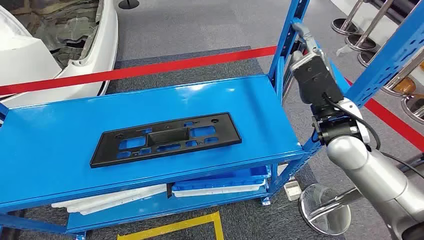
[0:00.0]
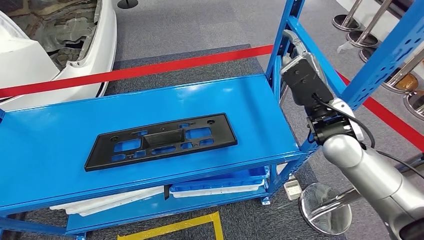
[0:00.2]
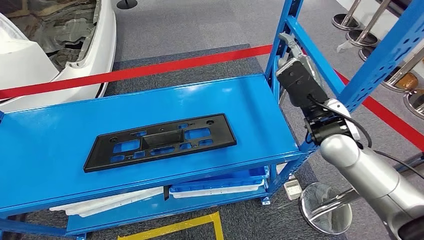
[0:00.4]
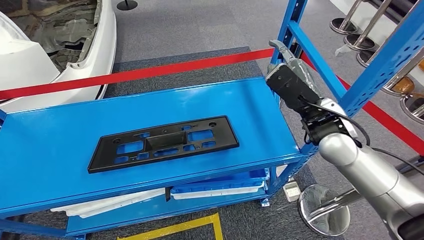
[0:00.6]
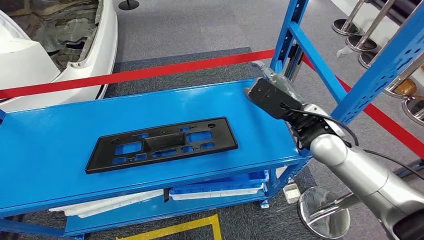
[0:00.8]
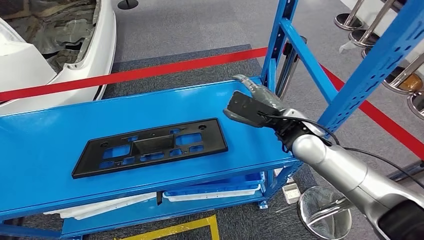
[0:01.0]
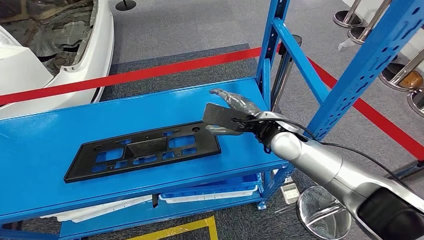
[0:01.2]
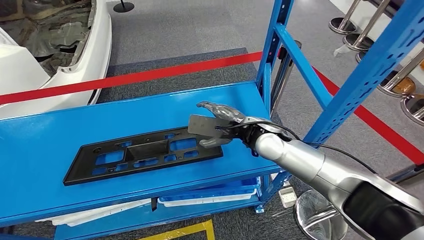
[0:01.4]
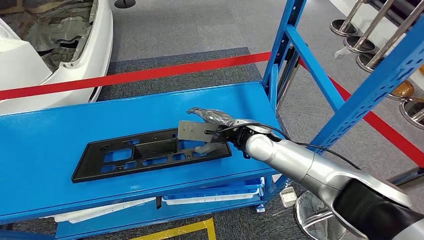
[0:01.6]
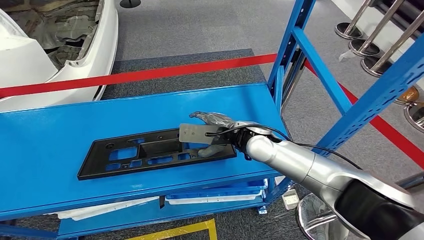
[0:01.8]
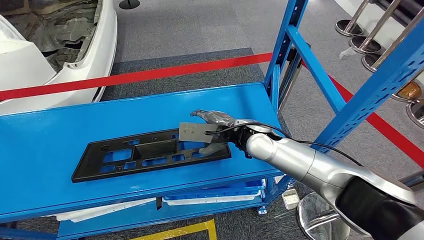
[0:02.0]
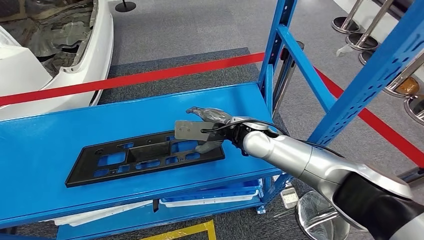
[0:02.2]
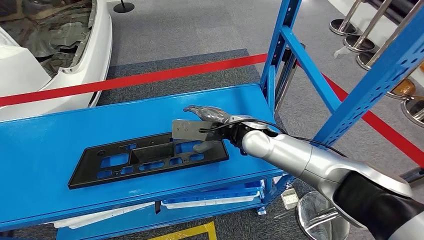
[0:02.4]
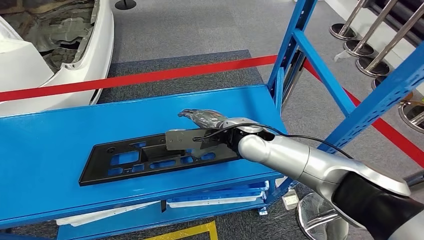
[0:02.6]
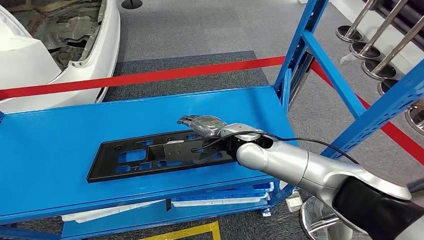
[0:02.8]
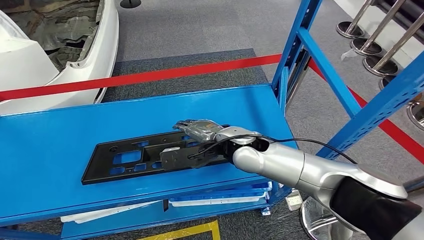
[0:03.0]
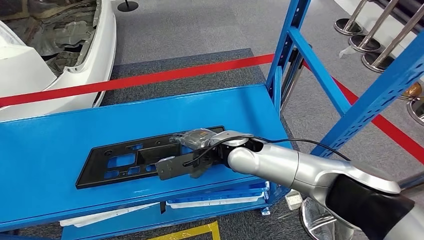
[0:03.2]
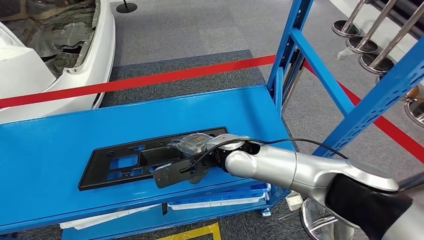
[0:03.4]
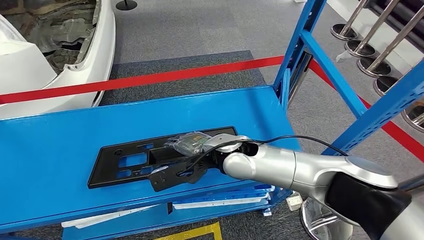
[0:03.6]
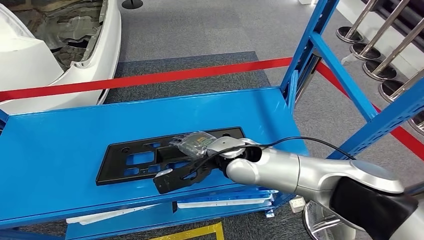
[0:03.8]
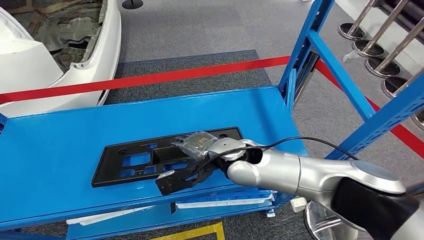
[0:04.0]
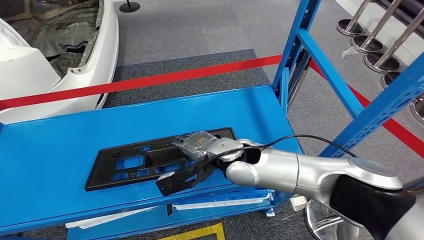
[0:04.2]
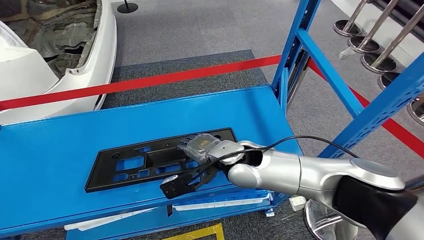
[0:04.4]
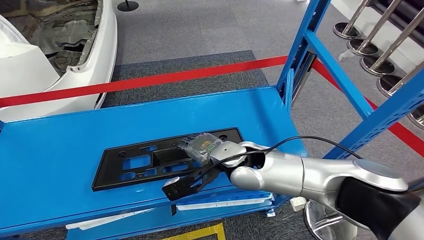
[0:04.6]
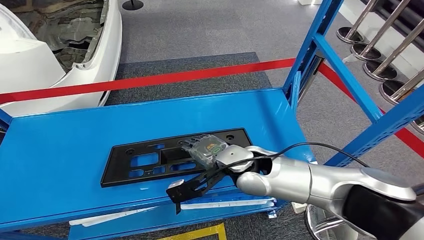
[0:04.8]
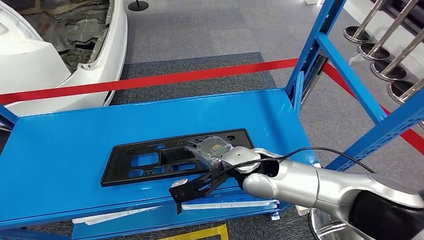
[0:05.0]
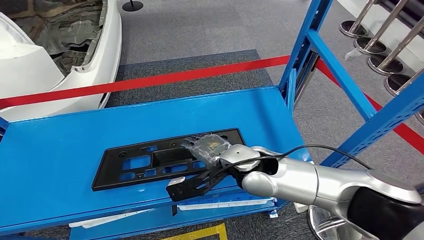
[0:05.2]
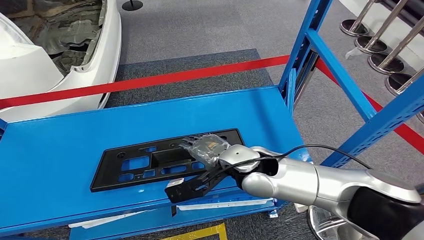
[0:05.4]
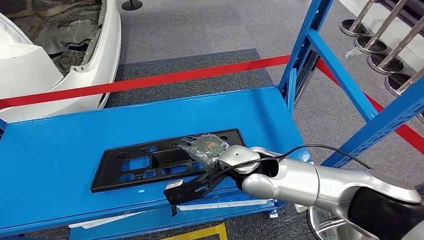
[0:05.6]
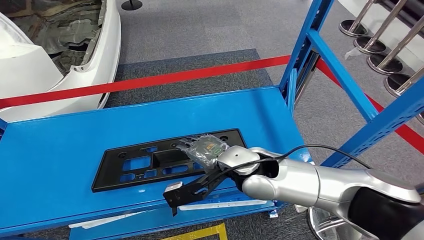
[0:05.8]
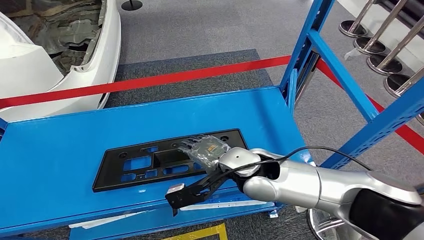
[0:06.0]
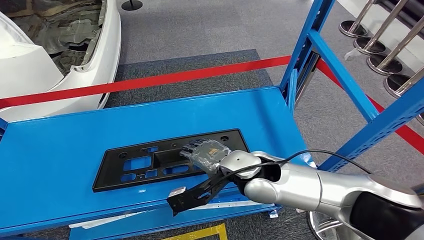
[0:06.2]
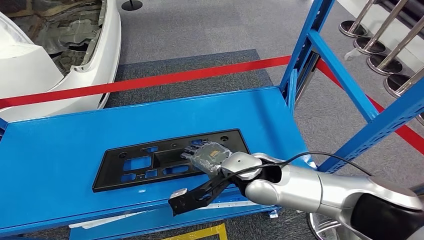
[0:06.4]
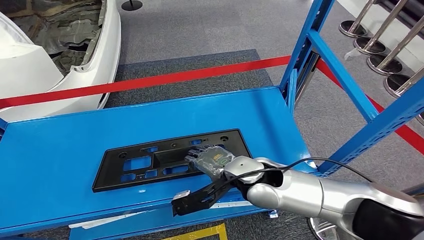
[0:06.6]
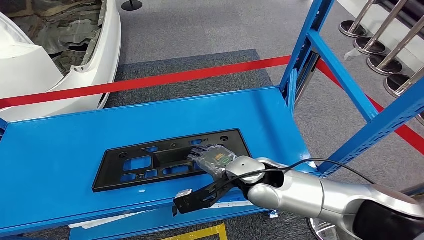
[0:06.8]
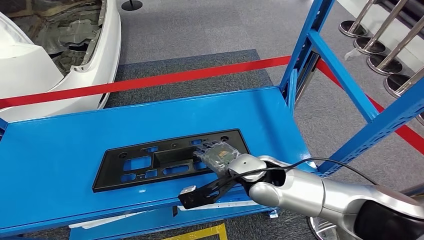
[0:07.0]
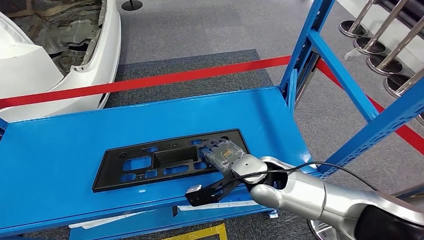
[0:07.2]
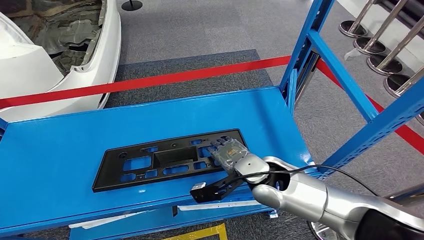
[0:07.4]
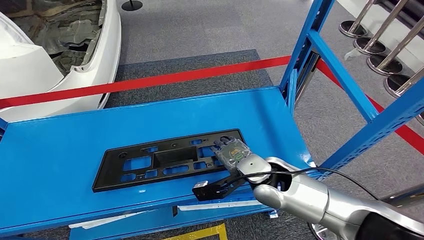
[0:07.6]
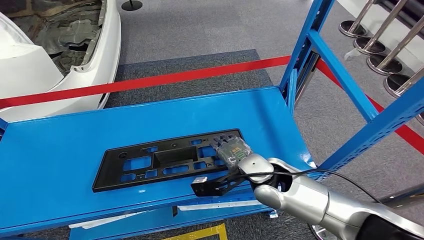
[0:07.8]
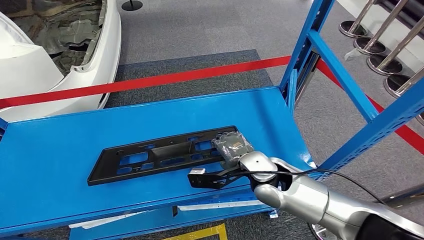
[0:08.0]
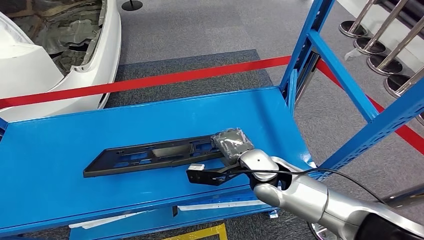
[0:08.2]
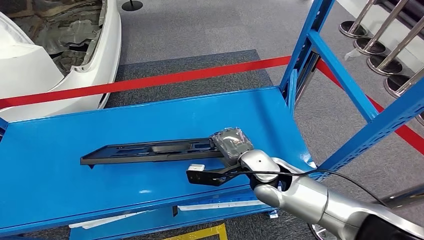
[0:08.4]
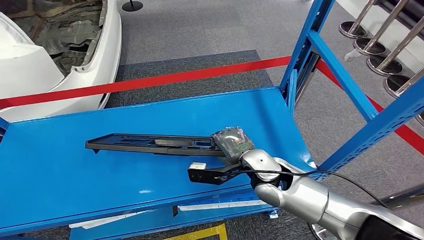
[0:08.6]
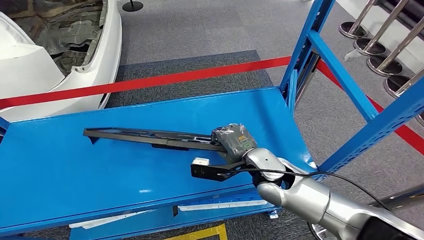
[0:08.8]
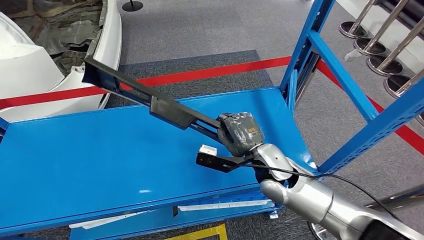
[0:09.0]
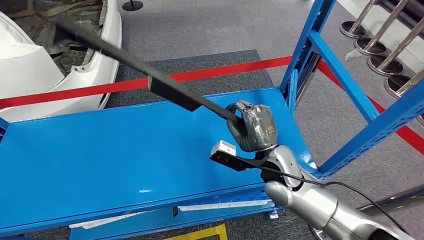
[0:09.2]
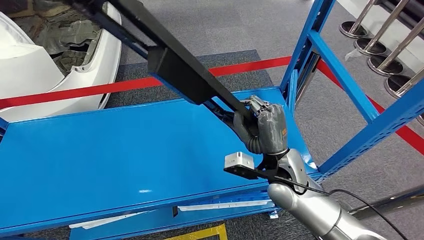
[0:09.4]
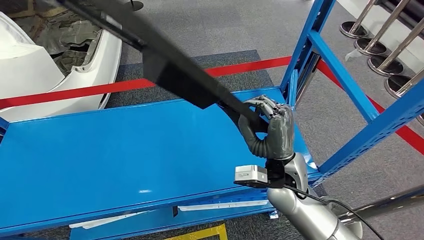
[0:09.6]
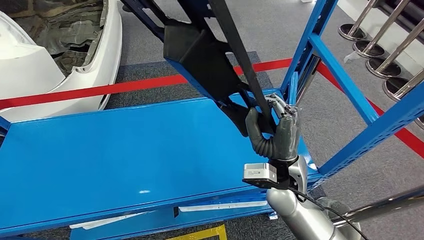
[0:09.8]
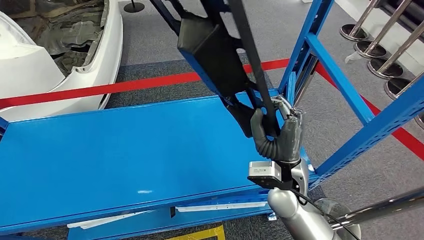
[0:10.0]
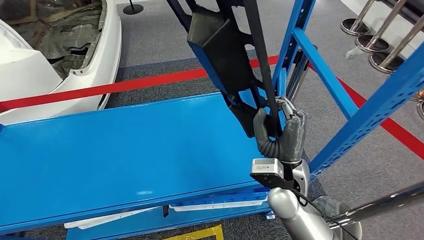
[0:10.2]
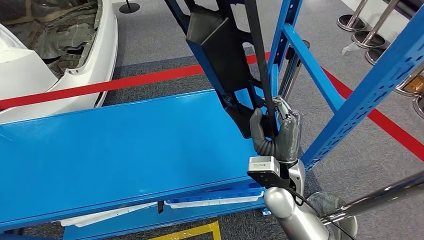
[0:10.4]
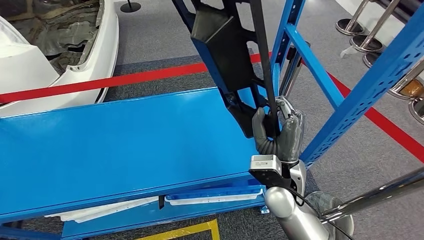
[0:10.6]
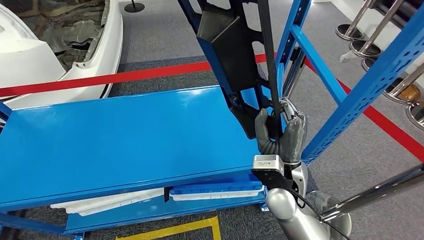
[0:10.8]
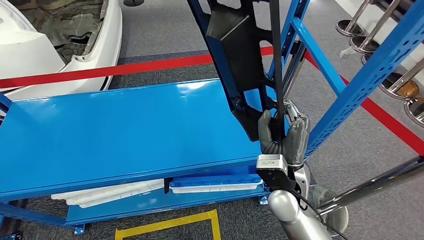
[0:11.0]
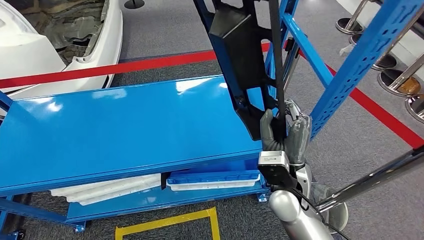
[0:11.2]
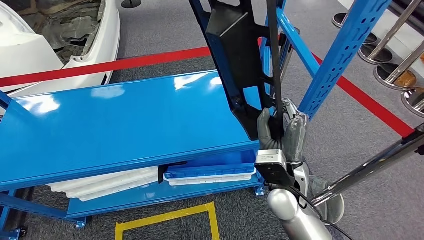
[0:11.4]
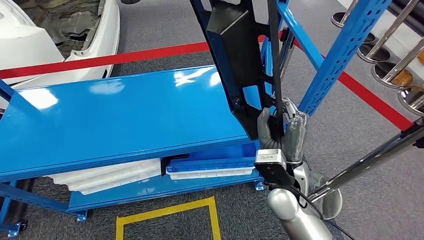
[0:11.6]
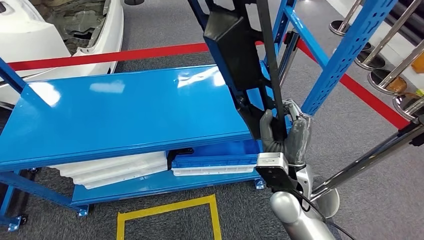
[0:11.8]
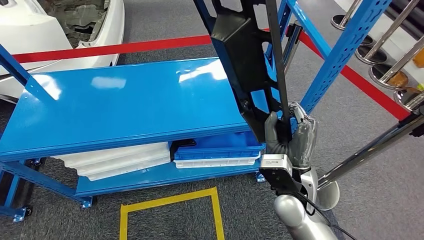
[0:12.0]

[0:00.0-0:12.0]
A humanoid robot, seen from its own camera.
0:06.0 to 0:07.6: The right hand moves roughly 5 cm.

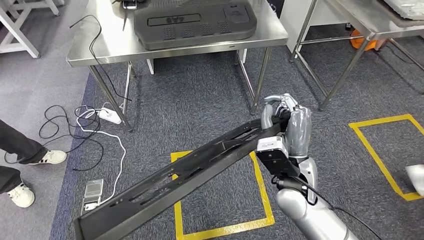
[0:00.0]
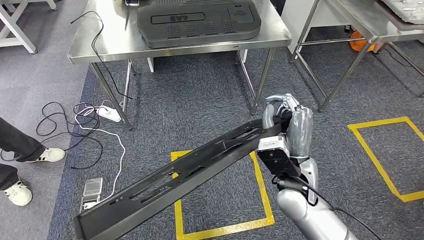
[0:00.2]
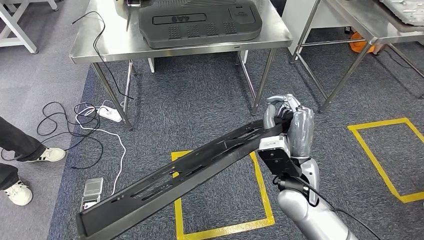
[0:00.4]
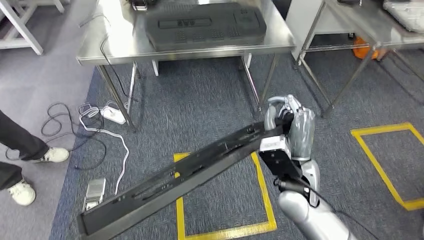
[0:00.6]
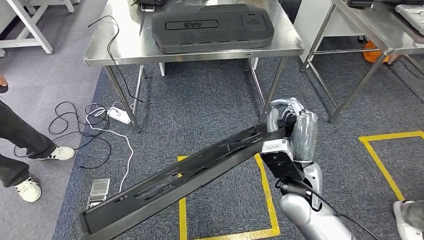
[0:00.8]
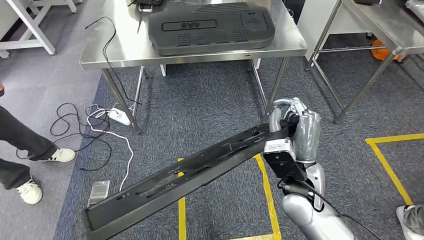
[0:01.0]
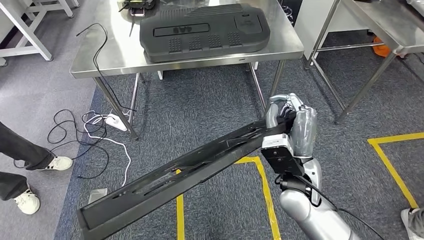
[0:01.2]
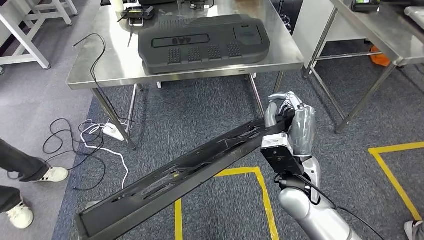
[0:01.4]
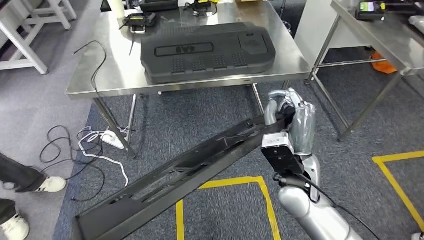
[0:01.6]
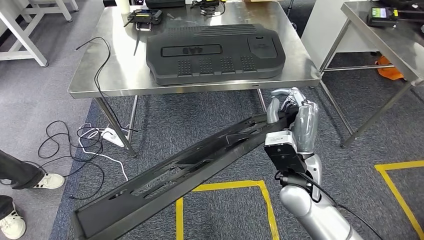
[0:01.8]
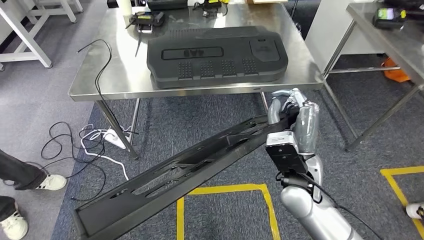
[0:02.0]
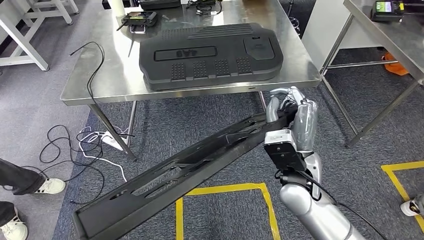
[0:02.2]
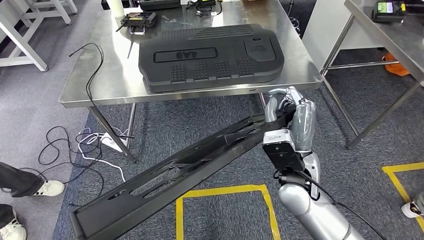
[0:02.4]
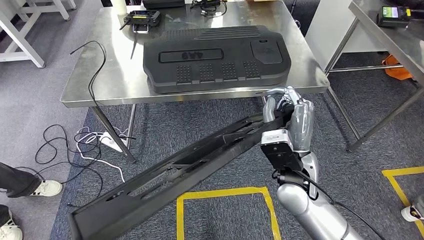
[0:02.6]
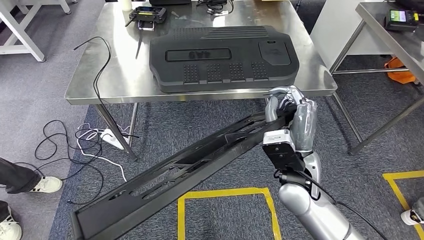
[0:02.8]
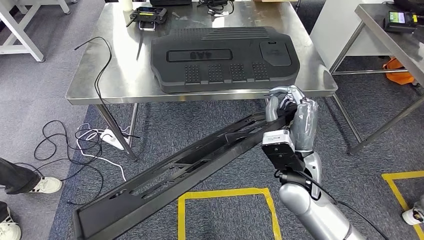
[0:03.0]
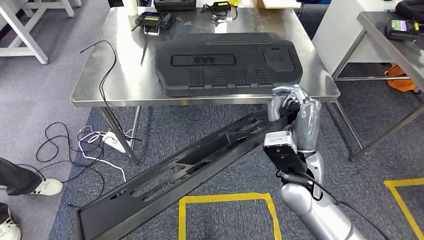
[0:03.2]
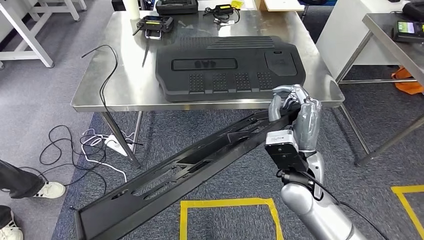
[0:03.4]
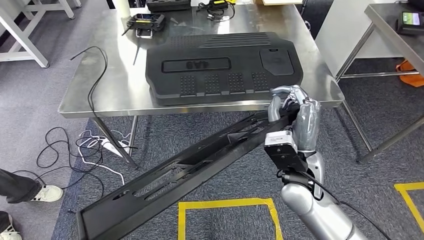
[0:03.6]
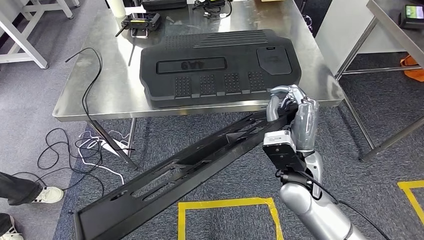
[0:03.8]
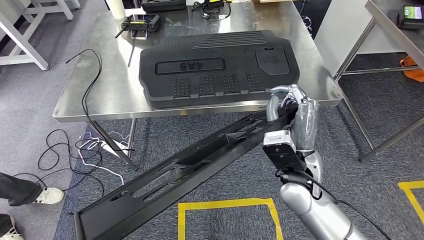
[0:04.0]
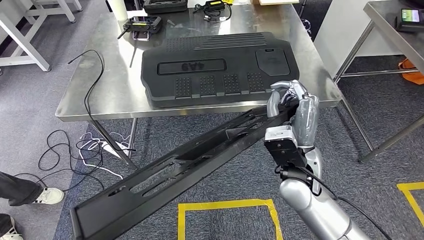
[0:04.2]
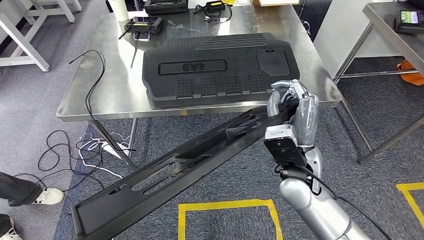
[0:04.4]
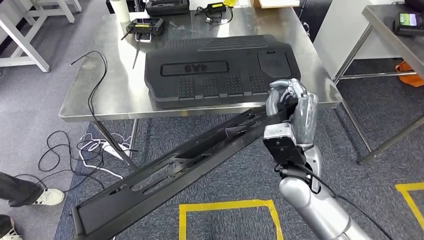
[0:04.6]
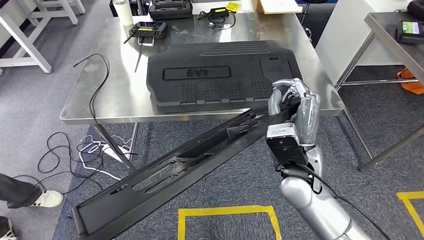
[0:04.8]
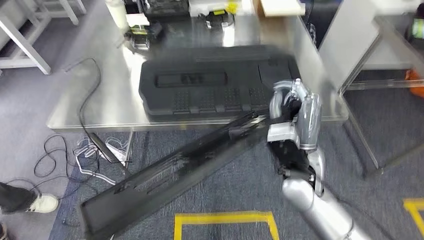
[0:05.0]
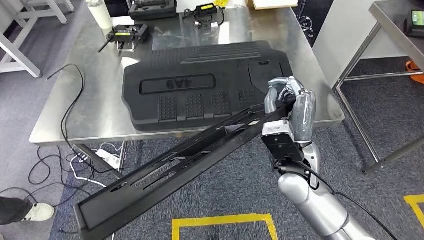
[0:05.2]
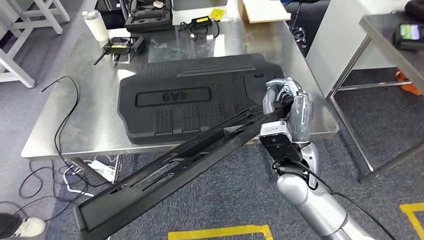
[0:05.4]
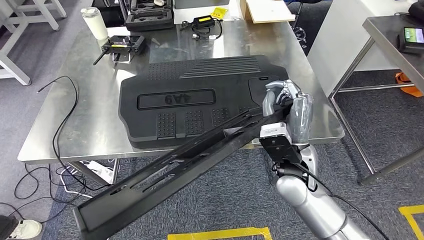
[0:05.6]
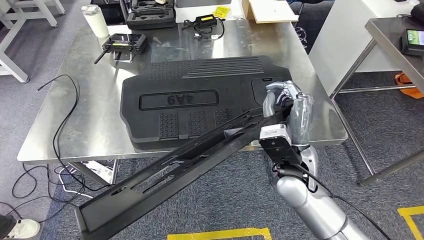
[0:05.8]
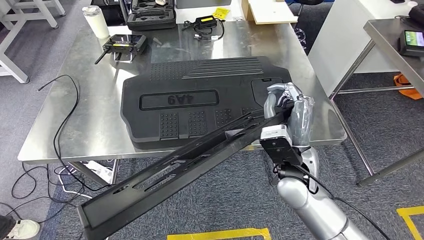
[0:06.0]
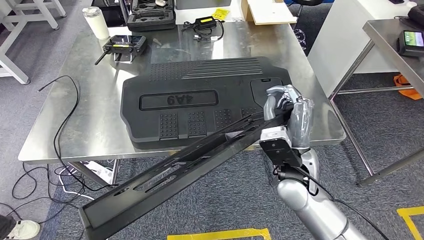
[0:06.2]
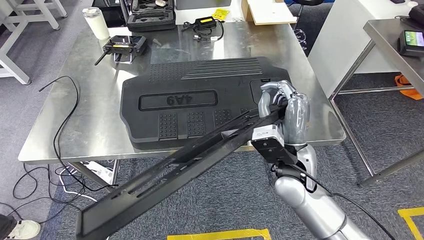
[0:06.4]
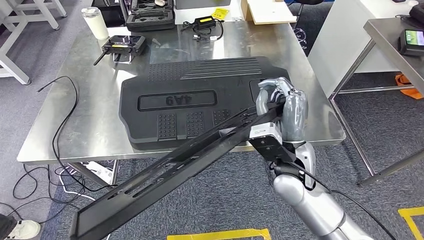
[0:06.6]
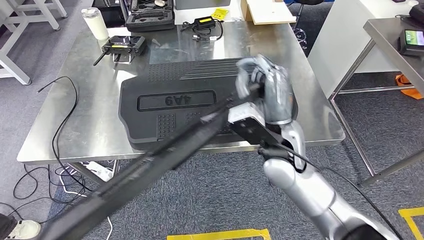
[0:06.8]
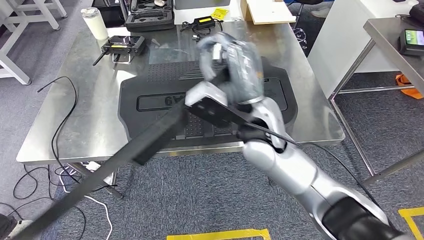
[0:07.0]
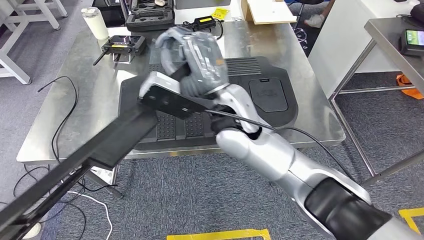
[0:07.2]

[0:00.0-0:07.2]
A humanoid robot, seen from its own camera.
Step, 0:00.0 to 0:03.0: Move the large material to the workbench.
